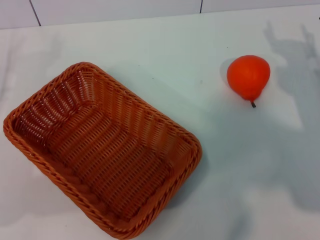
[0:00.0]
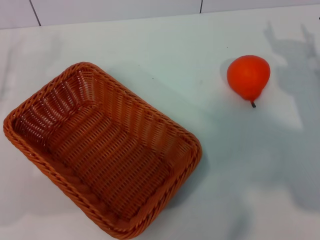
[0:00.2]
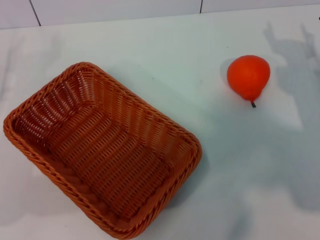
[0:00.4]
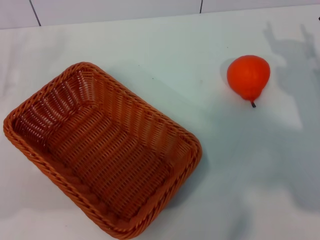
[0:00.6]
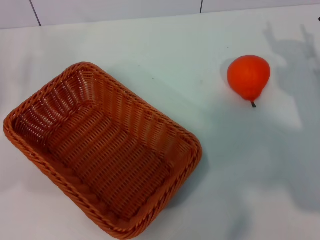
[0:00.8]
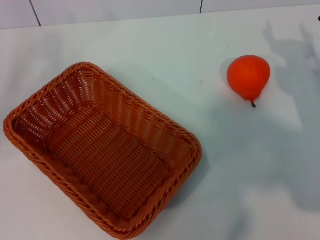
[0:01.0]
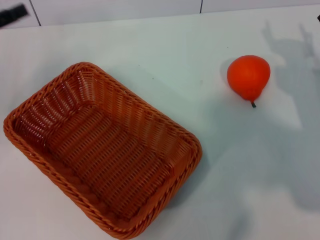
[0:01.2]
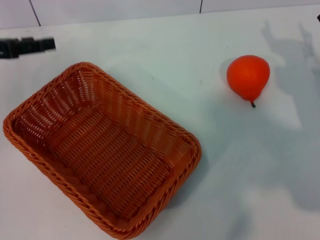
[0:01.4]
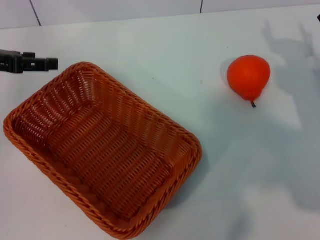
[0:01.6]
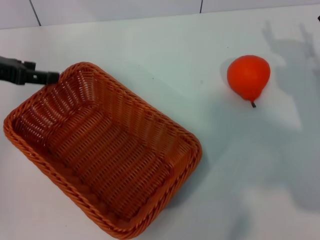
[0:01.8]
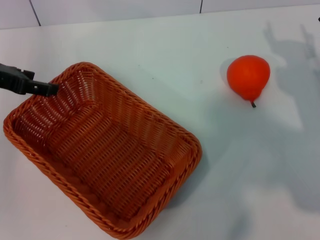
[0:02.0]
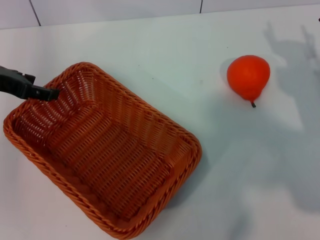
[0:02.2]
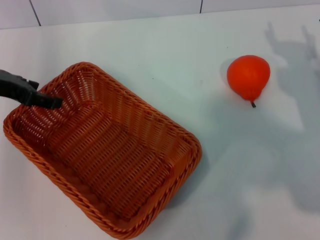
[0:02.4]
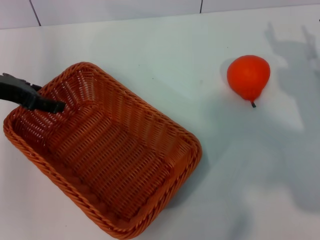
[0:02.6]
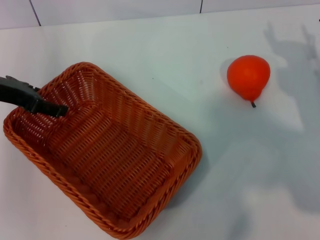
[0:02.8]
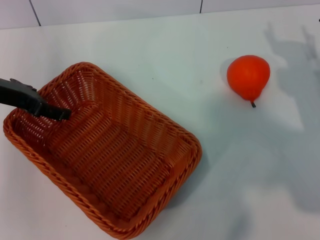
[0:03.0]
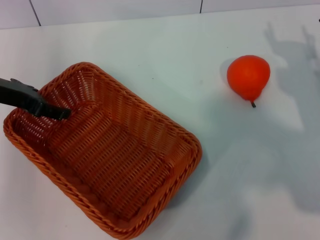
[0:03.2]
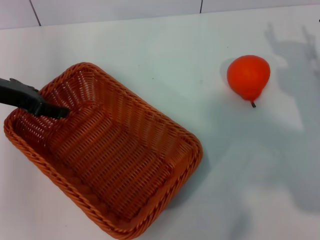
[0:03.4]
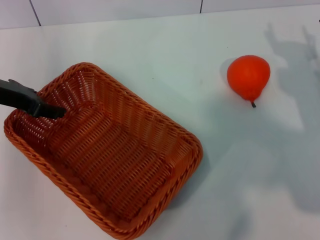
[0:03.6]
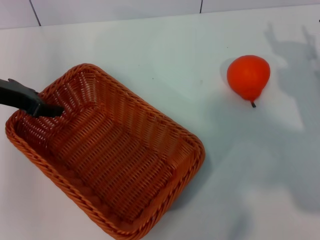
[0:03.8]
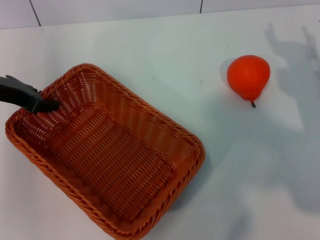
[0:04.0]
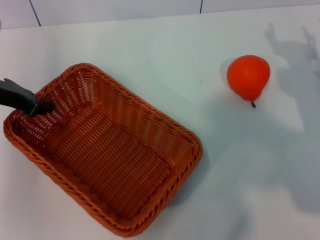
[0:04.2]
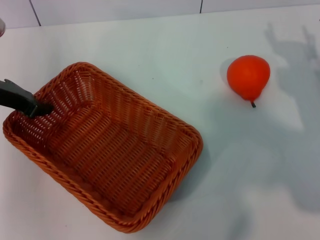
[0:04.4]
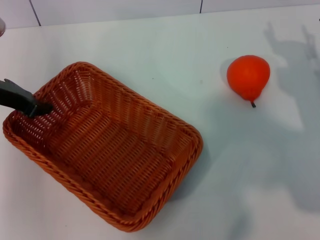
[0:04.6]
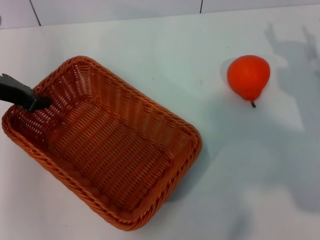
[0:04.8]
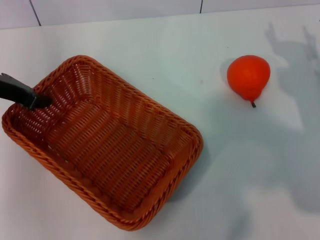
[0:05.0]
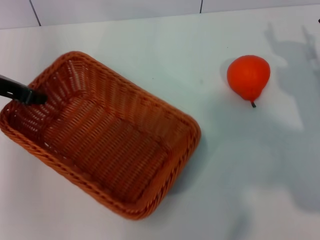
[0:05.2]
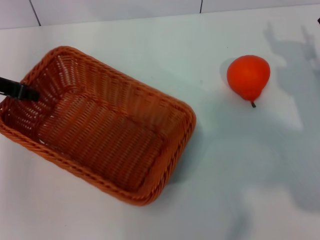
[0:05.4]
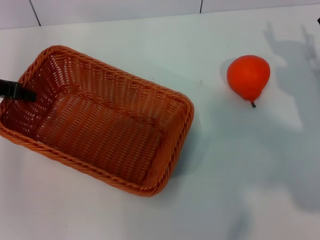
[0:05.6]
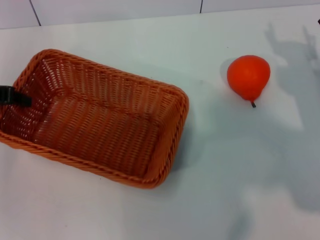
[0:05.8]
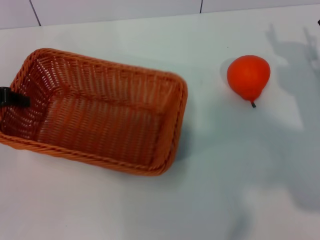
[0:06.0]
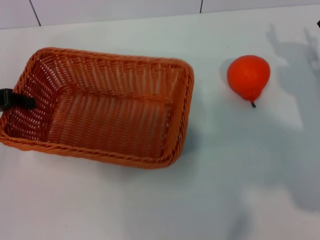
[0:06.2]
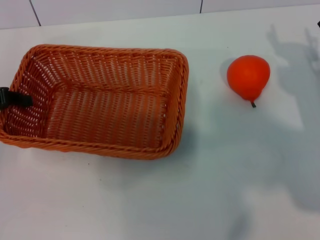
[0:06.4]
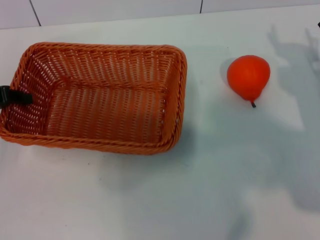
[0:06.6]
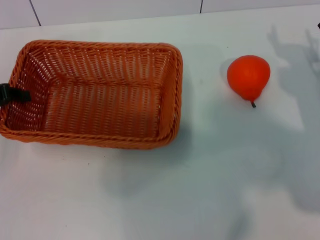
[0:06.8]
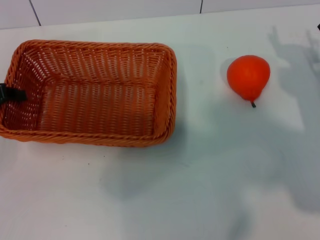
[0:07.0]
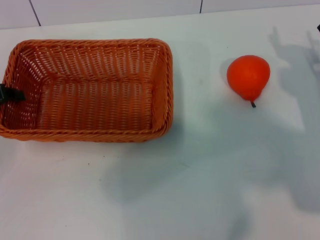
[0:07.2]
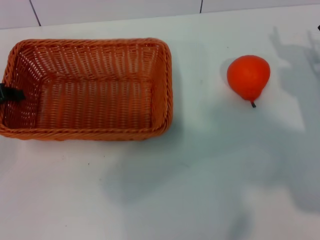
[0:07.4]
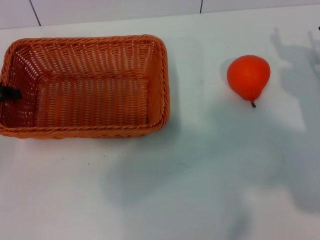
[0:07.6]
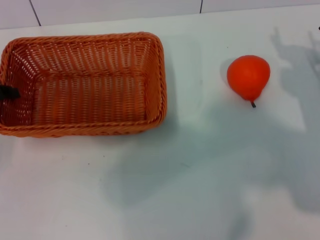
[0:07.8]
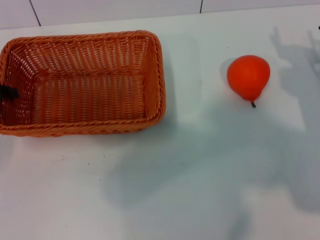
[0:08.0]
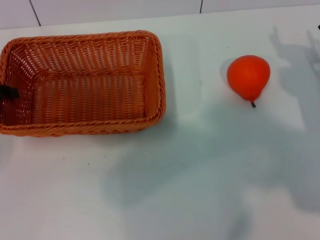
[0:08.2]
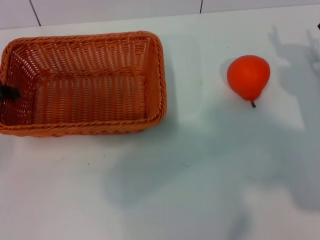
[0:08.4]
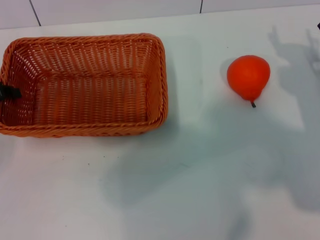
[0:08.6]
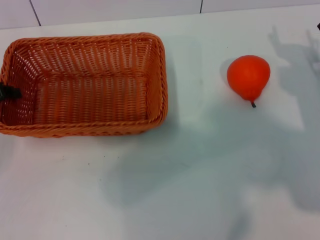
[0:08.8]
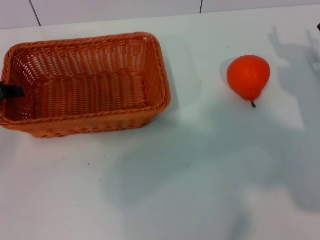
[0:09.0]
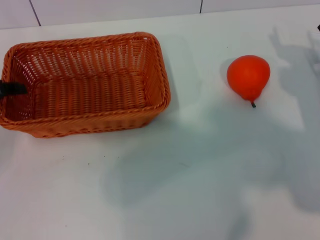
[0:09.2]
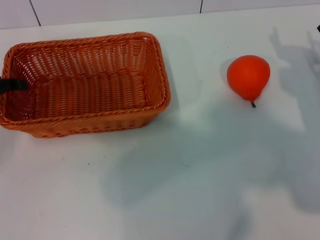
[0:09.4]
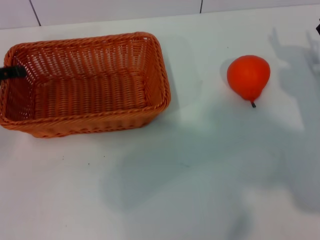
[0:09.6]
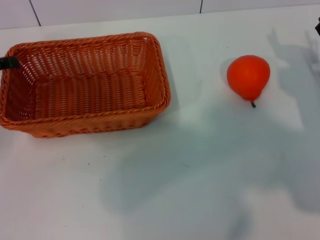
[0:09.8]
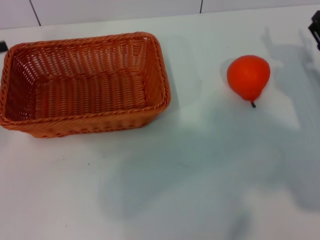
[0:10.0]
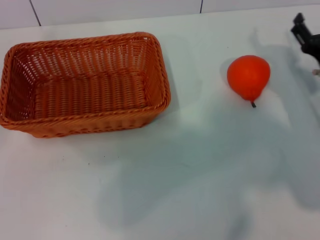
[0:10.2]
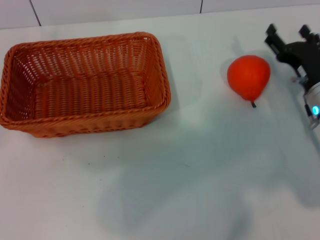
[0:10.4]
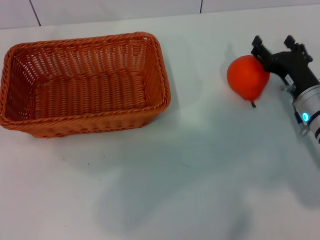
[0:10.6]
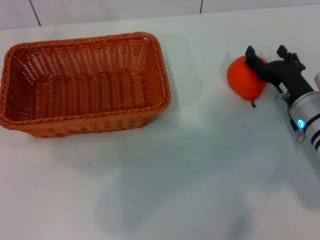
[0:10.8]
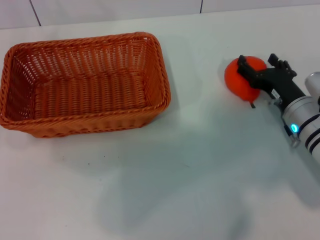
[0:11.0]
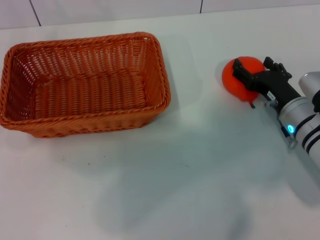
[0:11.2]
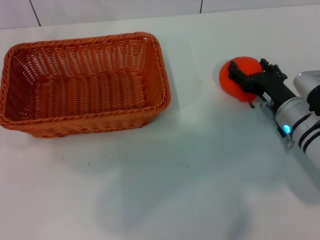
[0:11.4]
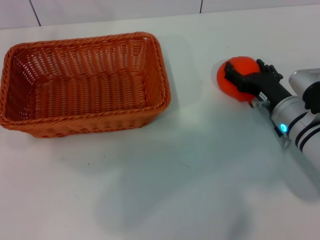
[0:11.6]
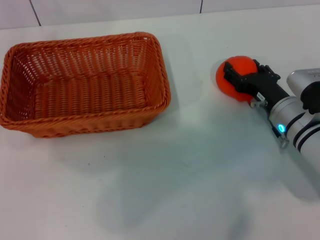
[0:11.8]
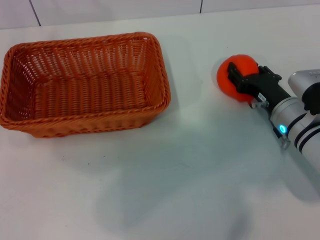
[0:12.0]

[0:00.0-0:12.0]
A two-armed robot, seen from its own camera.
Task of the whole recording: the left gripper pick up the yellow basket and place it horizontally in the middle of the table, the right gripper pick up the orange and place it into the yellow basket.
Step, 0:00.0 to 0:04.8: Pick up the light basket with the left gripper.
Step, 0:05.0 to 0:10.0: Place the light basket in the center of view with the left gripper.
0:00.0 to 0:01.6: The left gripper moves upward and forward, about 15 cm.
0:03.0 to 0:04.4: The left gripper closes up.
0:04.4 to 0:06.0: The left gripper travels to the left by roughly 5 cm.
0:06.0 to 0:07.6: The grippers stay close to where they were, moving slightly.
0:07.6 to 0:09.0: Both grippers stay put.
0:09.0 to 0:10.4: The right gripper shifts by approximately 5 cm.
0:10.4 to 0:12.0: The grippers make only small movements.

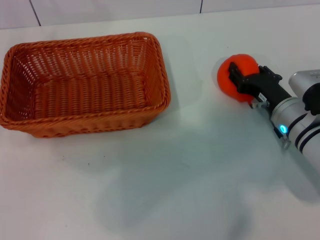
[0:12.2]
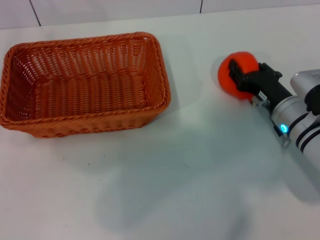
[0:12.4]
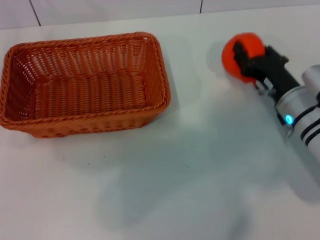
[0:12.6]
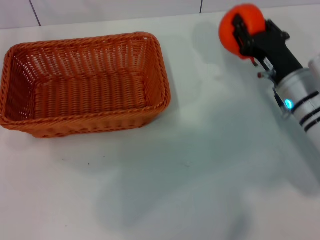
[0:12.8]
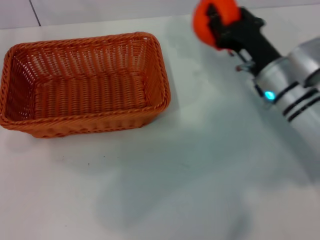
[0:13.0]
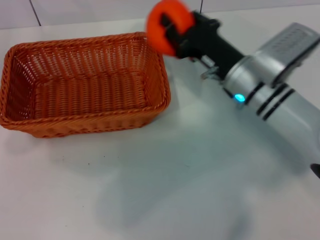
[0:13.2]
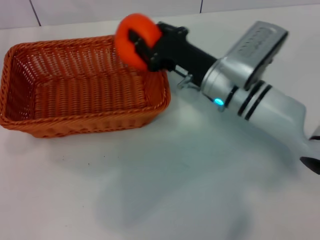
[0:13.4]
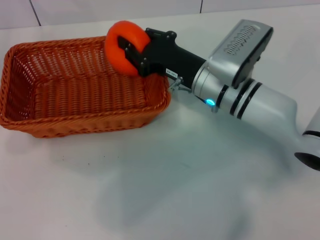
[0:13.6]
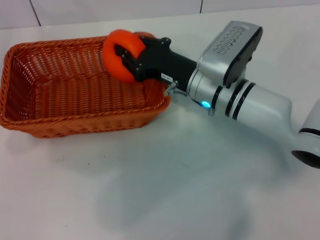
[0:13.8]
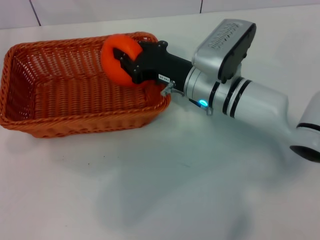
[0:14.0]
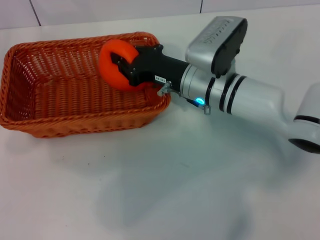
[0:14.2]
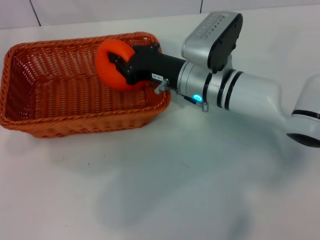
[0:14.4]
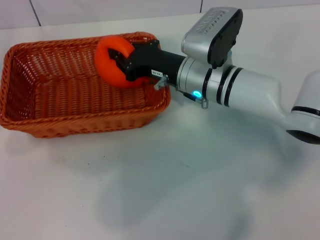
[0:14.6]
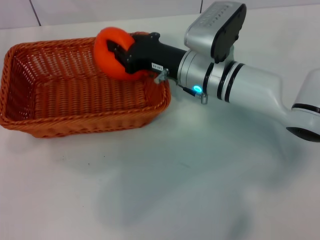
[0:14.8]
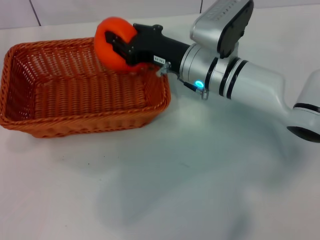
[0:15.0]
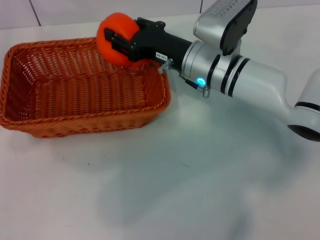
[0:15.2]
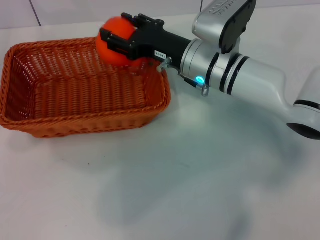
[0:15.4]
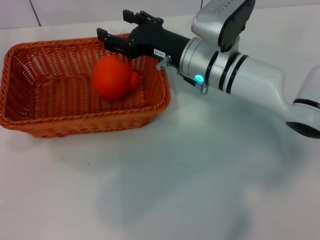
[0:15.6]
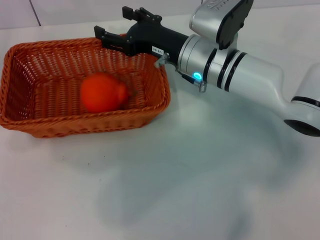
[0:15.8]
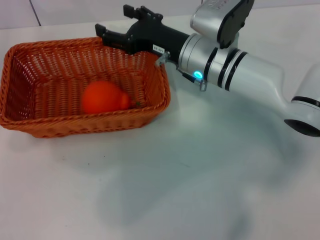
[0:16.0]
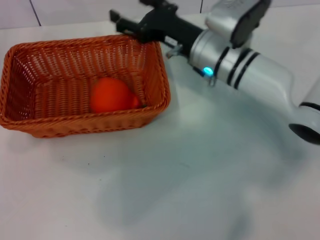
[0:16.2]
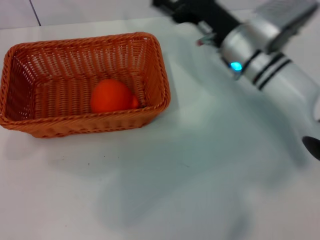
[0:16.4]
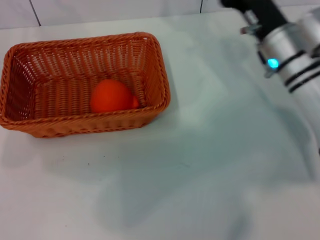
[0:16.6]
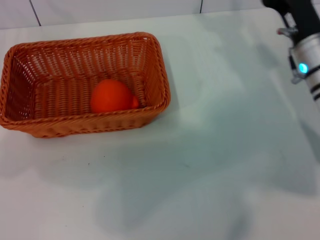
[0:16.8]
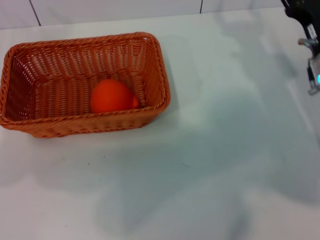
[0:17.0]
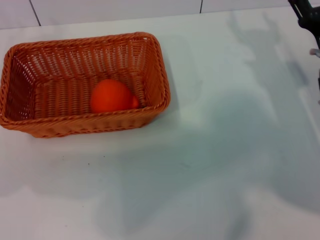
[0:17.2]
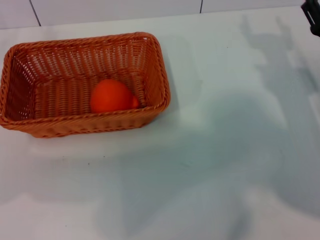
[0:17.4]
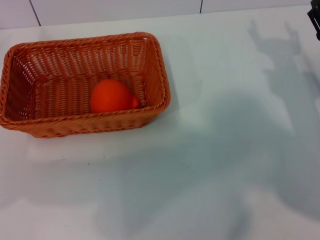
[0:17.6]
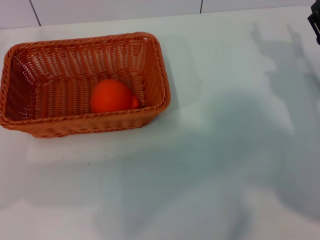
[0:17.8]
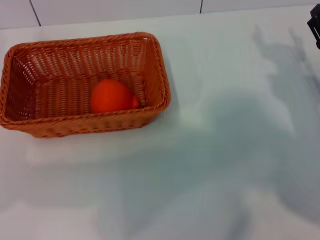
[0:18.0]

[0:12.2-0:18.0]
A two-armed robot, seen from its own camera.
Task of the whole recording: the left gripper pick up the yellow basket and place it horizontally in the middle of the table, the right gripper pick up the orange and place it into the yellow basket.
Step, 0:13.0 to 0:15.6: Place the orange into the light basket with the right gripper.
0:12.2 to 0:13.6: The right gripper heads to the left and upward, covering roughly 15 cm, and closes.
0:13.6 to 0:15.0: The grippers stay close to where they were, moving slightly.
0:15.0 to 0:16.6: The right gripper heads to the right, covering some 10 cm, and opens its fingers.
0:16.6 to 0:18.0: The right gripper heads to the right, backward and downward, covering roughly 15 cm.
